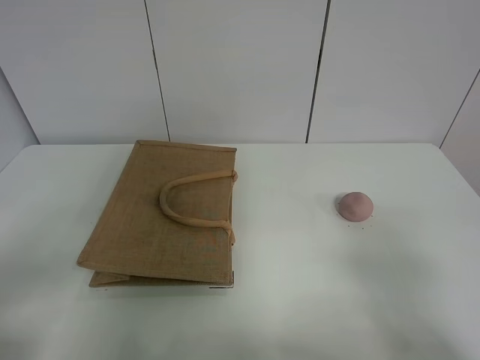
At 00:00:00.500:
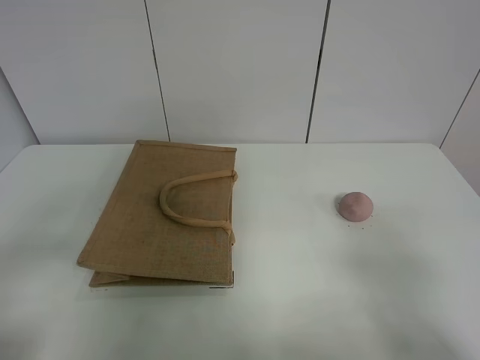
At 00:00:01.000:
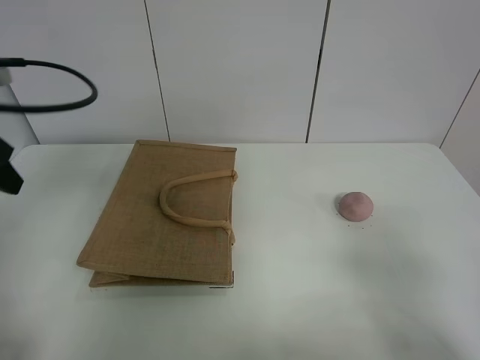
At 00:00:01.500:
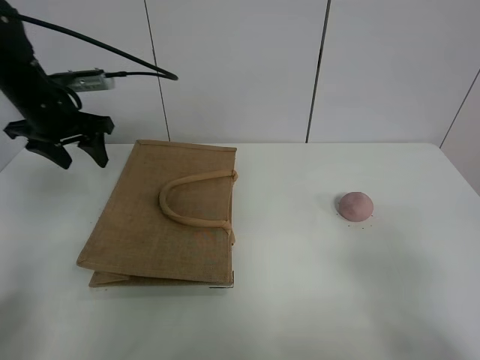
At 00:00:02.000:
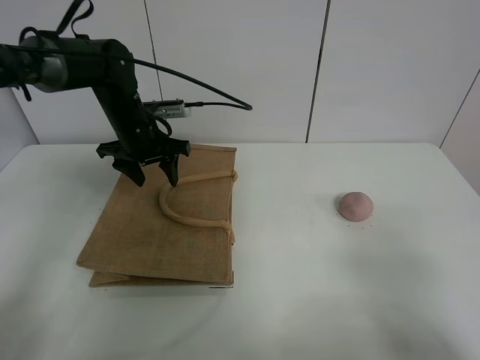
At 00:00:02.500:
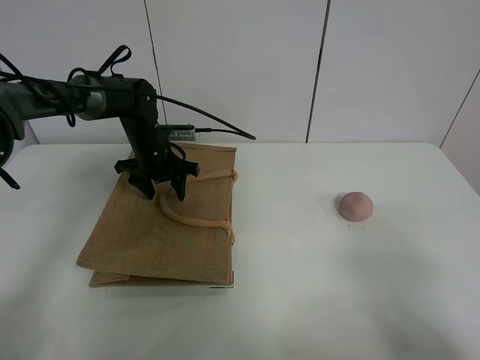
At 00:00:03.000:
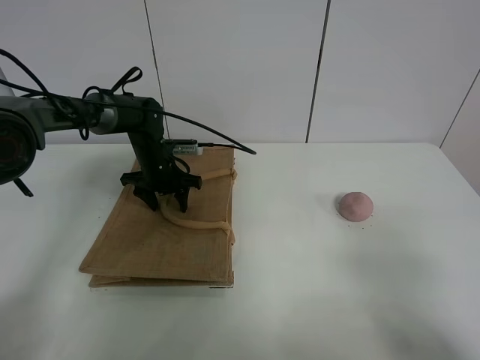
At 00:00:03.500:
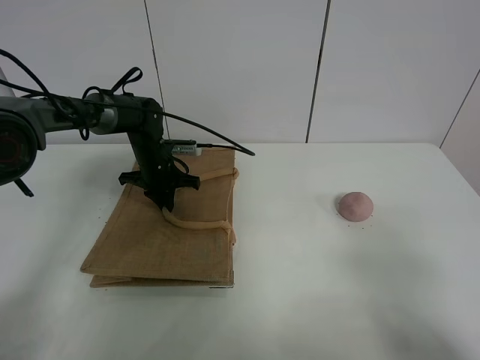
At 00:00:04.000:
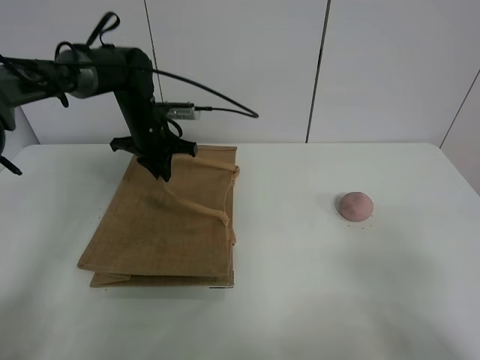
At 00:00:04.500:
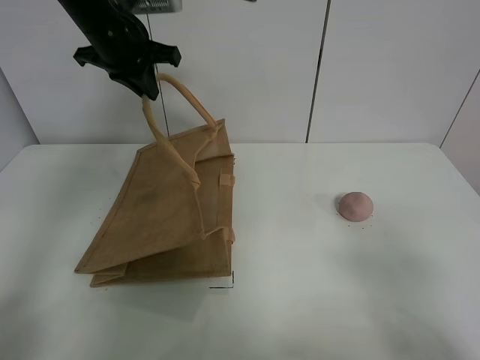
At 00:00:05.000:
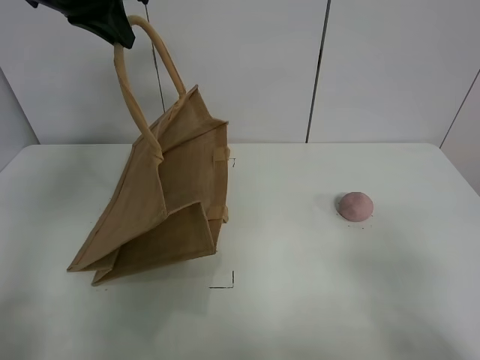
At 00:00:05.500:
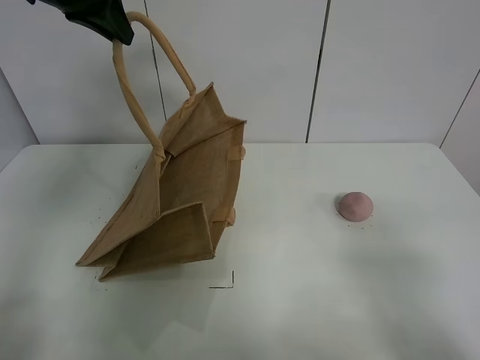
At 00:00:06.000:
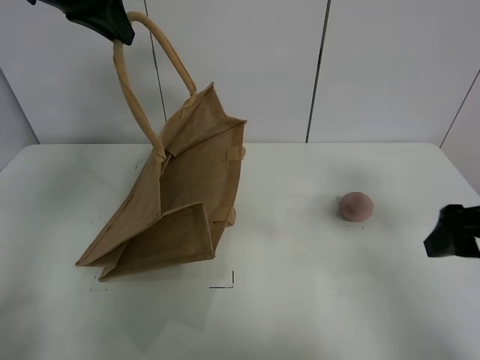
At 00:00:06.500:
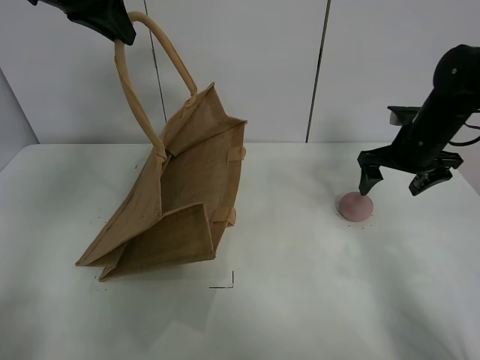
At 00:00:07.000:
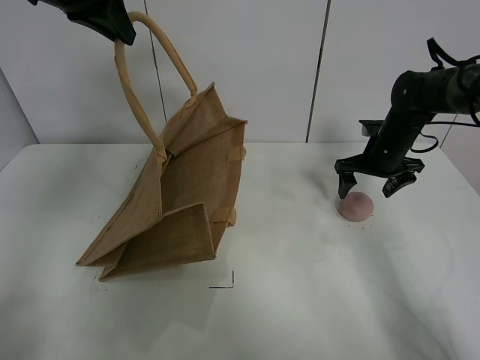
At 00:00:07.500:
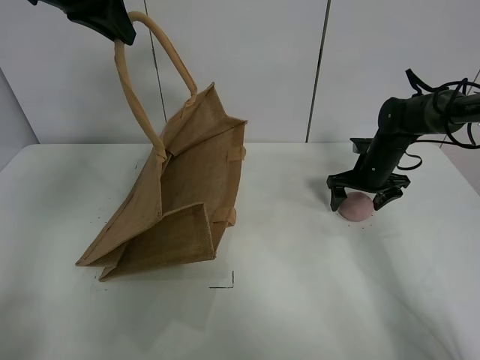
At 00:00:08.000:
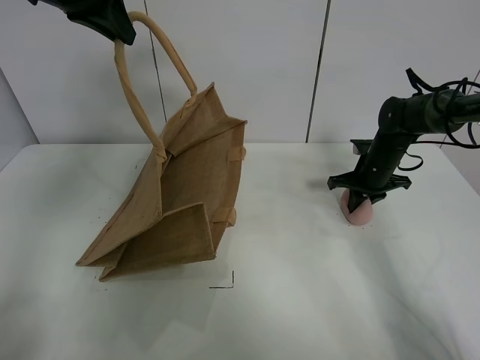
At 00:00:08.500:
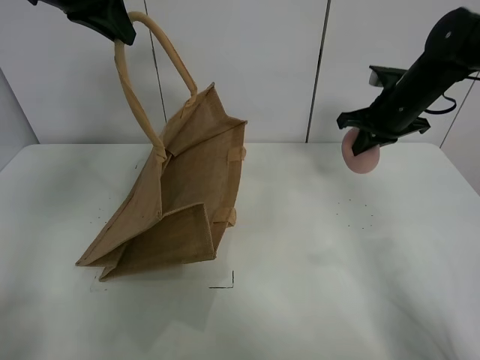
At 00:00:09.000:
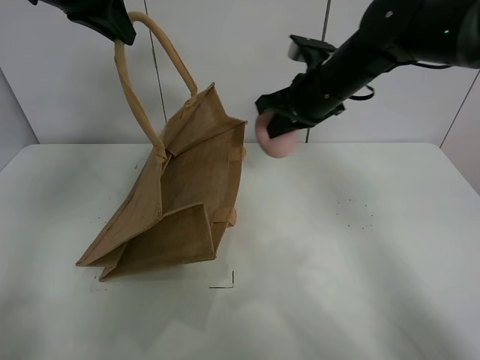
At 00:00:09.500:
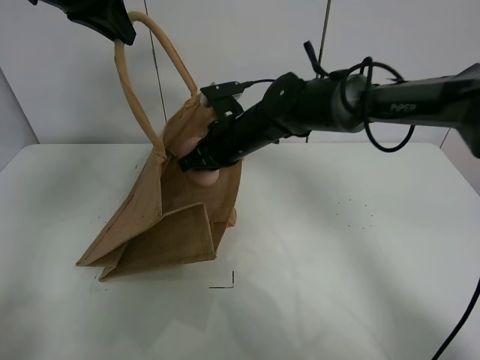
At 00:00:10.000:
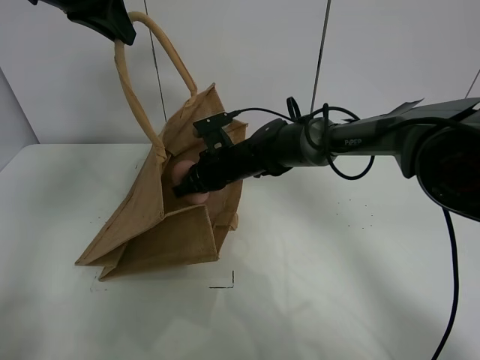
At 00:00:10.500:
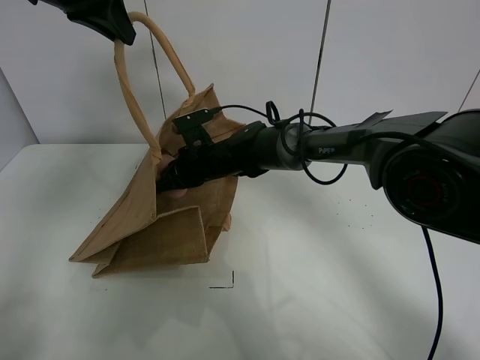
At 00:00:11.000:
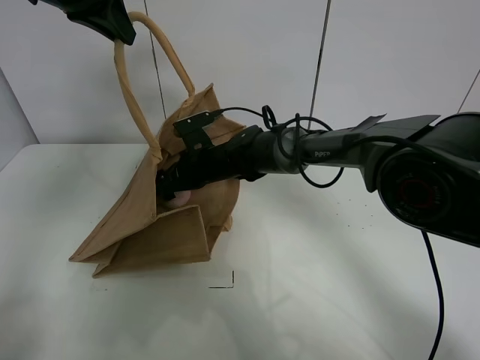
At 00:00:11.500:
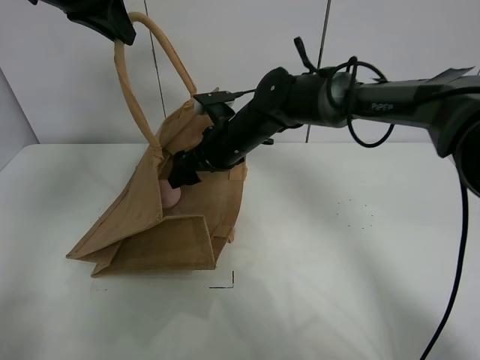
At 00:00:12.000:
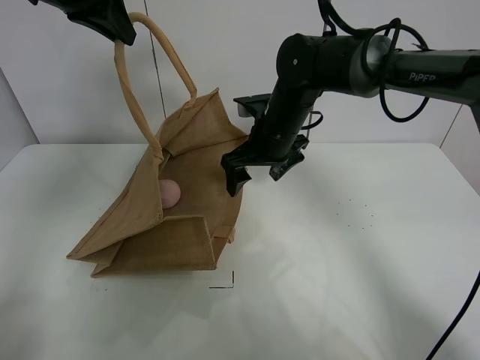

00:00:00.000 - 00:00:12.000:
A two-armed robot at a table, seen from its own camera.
Task of the whole recording: open the brown linen bag and put the peach in the bag.
Step, 00:00:00.000 - 00:00:05.000: Lift the handbag with left gripper.
Step, 00:00:05.500 - 00:00:08.000: Grasp the peach with right gripper.
00:00:00.000 - 00:00:02.000: The left gripper shifts approximately 40 cm forward.
00:00:02.000 - 00:00:04.000: The left gripper travels downward and back again, some 10 cm each way, and closes.
00:00:04.000 - 00:00:06.000: The left gripper heads upward and backward, covering roughly 25 cm, while the right gripper is displaced forward by some 20 cm.
00:00:06.000 - 00:00:08.000: The right gripper shifts roughly 30 cm forward and downward, and closes.
00:00:08.000 - 00:00:10.000: The right gripper is displaced to the left by about 25 cm.
00:00:10.000 - 00:00:12.000: The right gripper goes about 10 cm upward and to the right, and opens.

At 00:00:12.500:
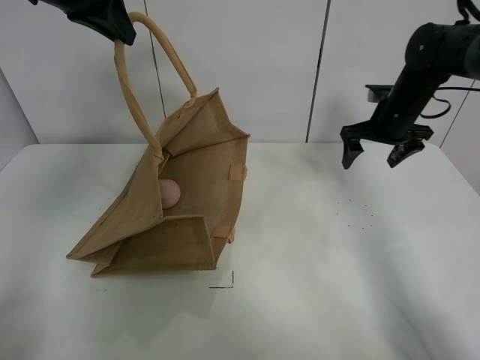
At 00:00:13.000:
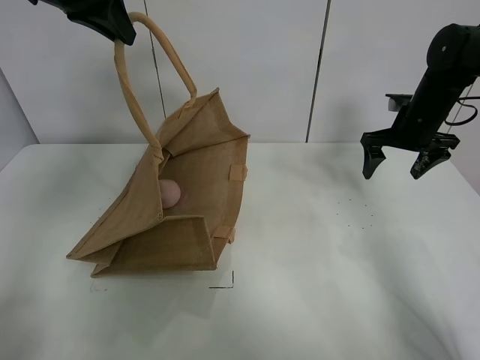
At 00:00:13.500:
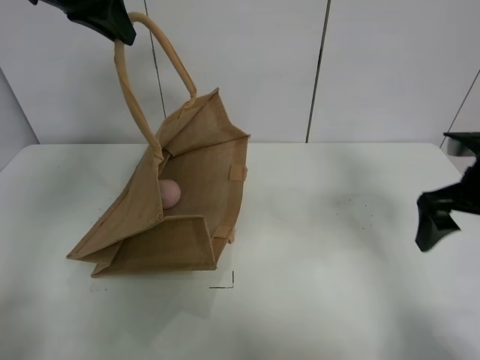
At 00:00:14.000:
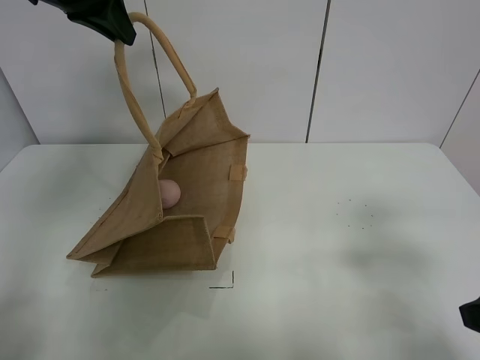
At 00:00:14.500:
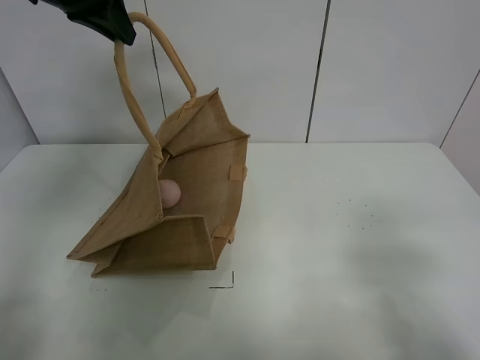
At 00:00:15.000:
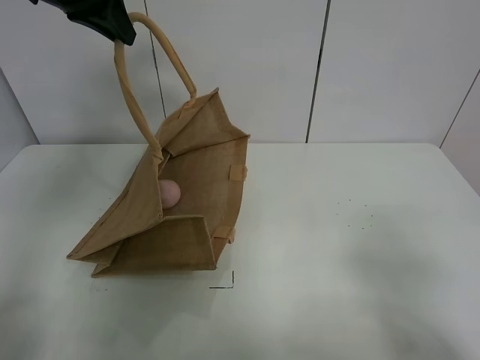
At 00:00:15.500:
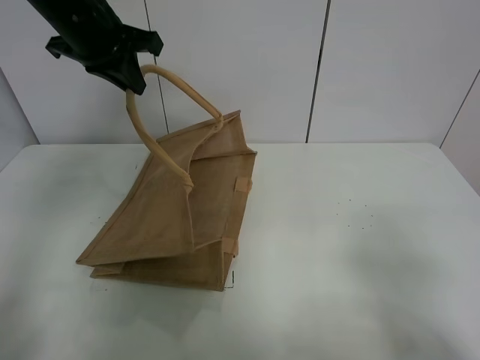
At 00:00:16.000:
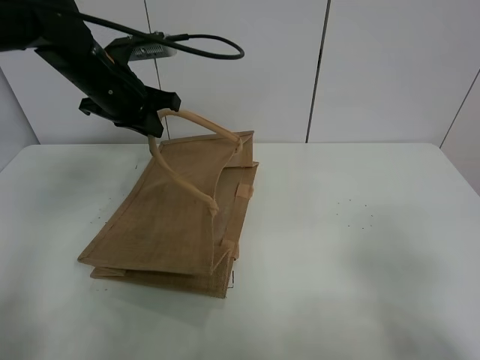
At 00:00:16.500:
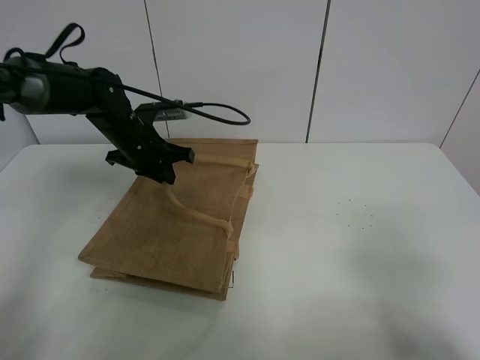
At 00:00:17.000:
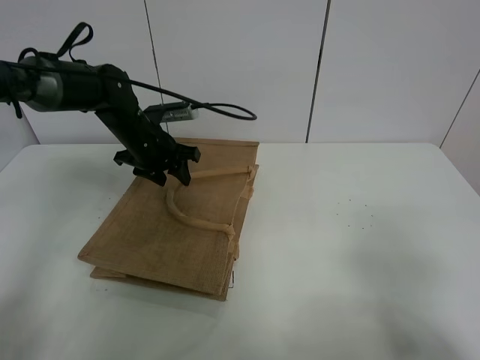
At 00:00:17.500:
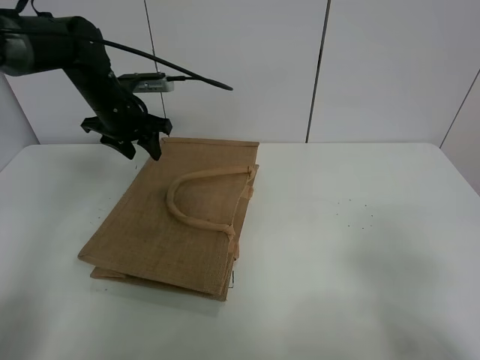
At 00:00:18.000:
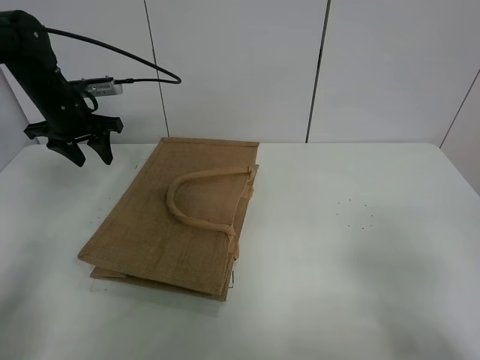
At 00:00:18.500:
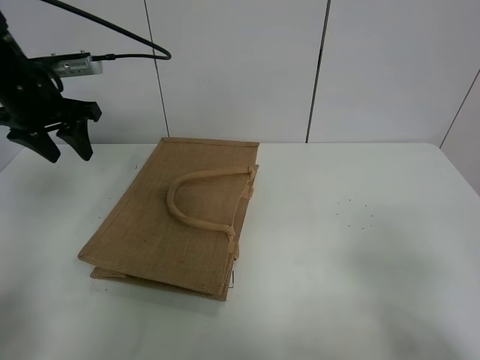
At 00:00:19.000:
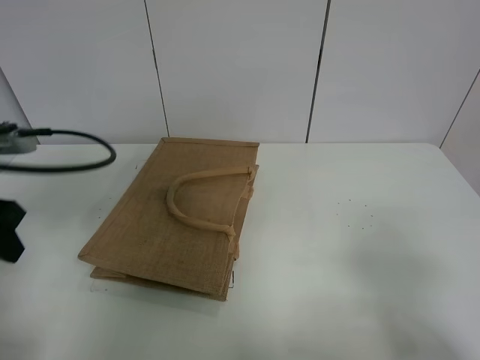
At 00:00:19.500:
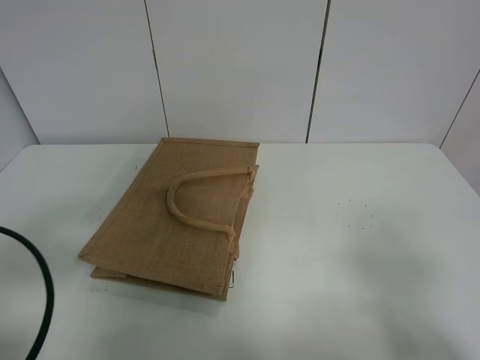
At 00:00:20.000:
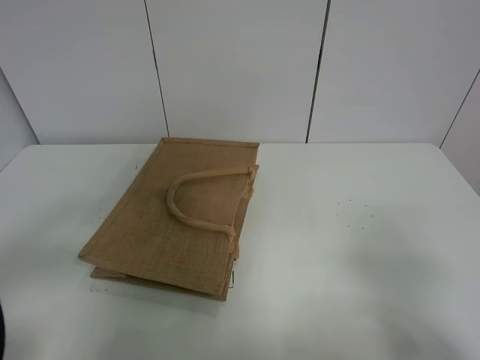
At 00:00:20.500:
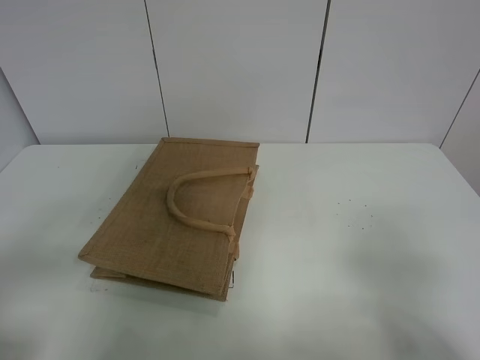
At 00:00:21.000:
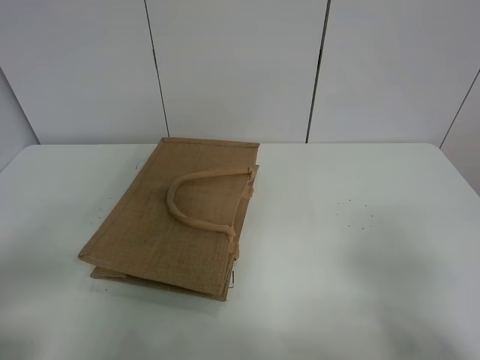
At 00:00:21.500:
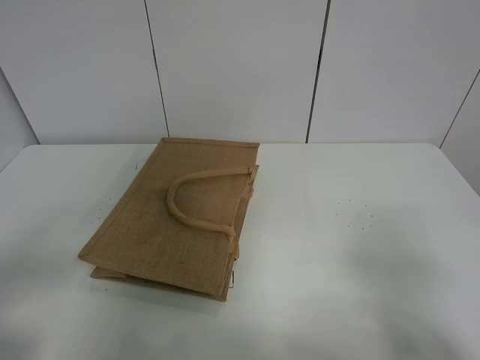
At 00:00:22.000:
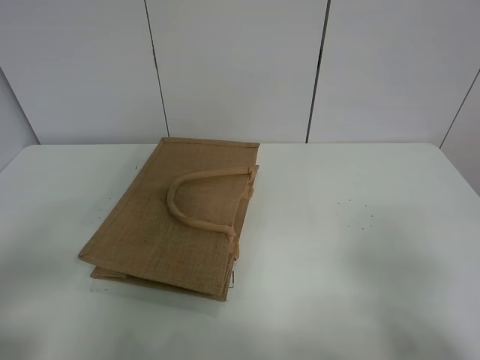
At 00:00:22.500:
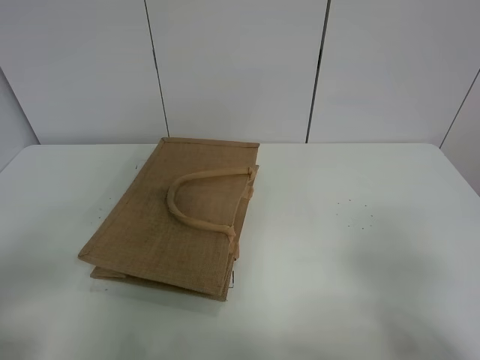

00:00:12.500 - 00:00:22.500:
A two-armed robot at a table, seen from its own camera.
Task of the whole recording: open the brown linen bag and put the peach in the bag.
Step, 00:00:12.500 - 00:00:17.500: Put down the handbag with left grippe.
00:00:12.500 - 00:00:14.500: The right gripper travels backward by about 40 cm.
00:00:14.500 - 00:00:16.500: The left gripper moves downward, some 25 cm.
00:00:16.500 - 00:00:18.500: The left gripper shifts some 15 cm upward, to the left and backward, and opens up.
00:00:18.500 - 00:00:20.500: The left gripper is displaced backward by roughly 30 cm.
